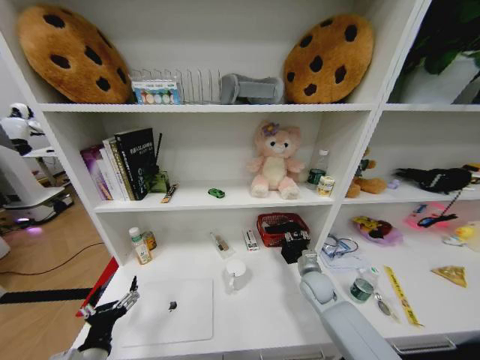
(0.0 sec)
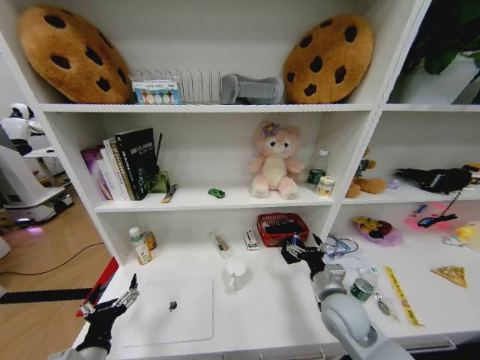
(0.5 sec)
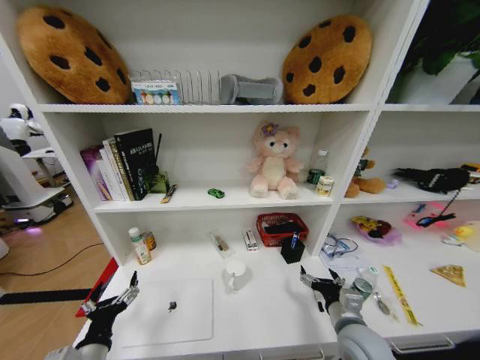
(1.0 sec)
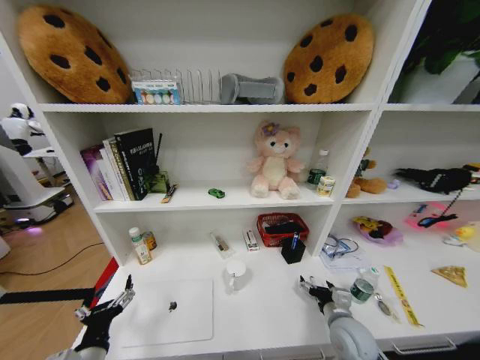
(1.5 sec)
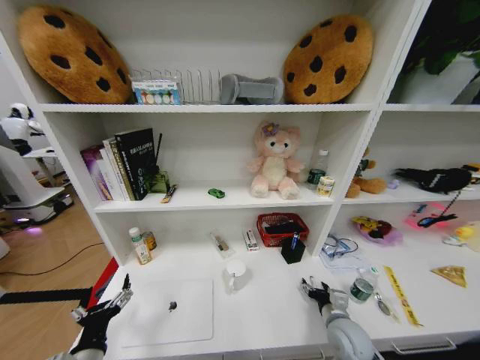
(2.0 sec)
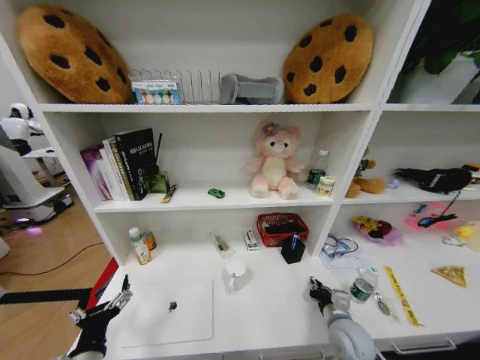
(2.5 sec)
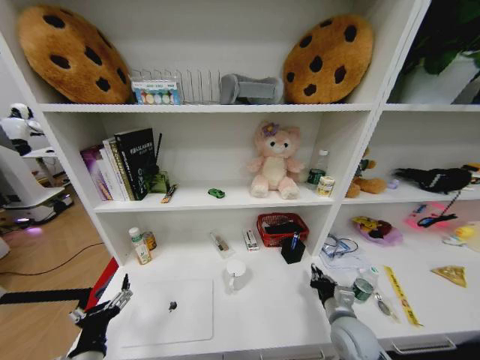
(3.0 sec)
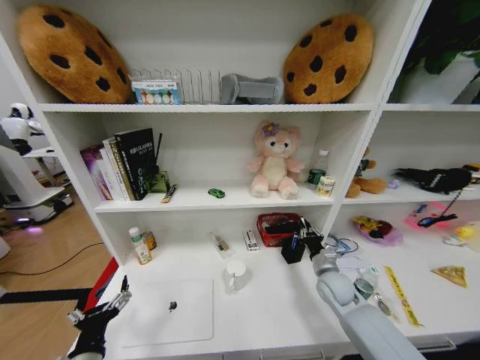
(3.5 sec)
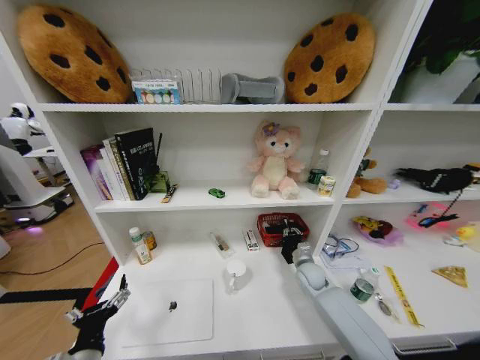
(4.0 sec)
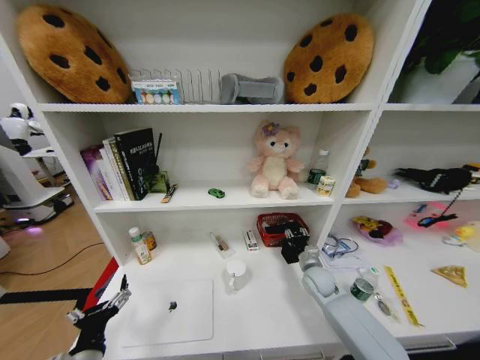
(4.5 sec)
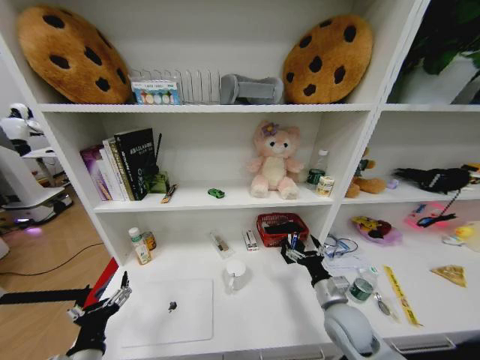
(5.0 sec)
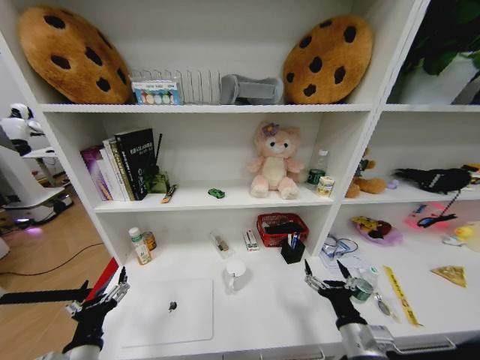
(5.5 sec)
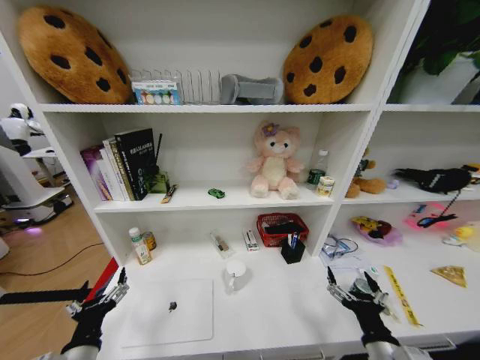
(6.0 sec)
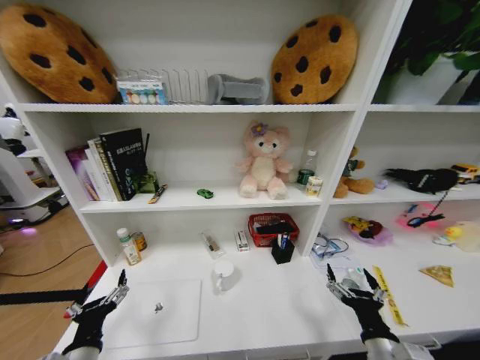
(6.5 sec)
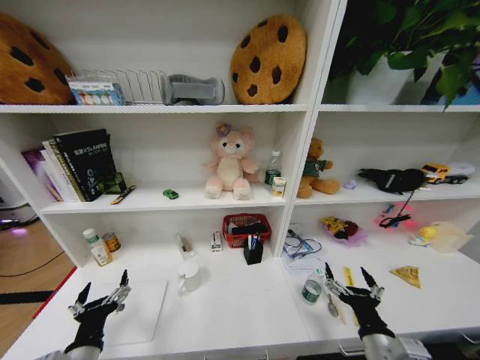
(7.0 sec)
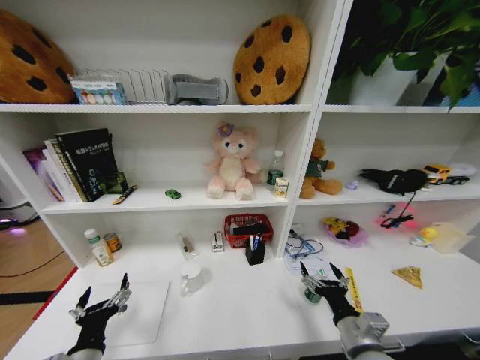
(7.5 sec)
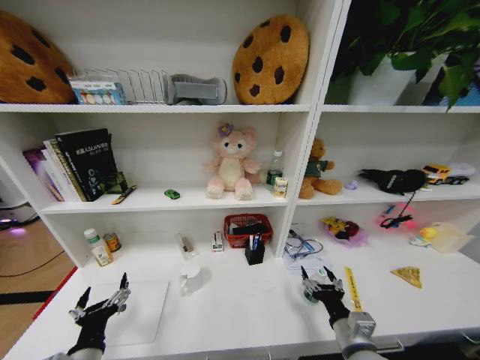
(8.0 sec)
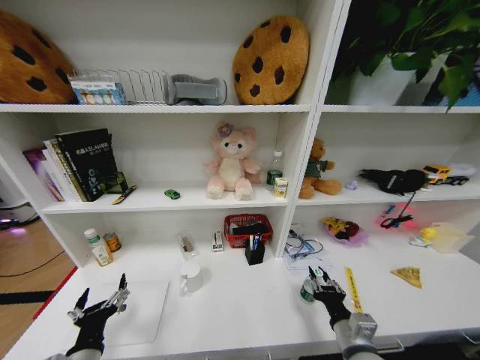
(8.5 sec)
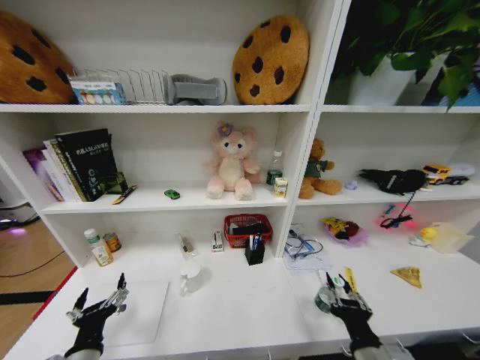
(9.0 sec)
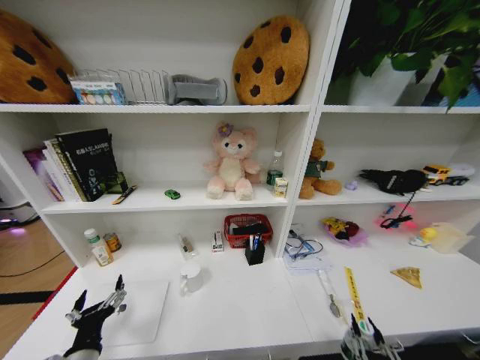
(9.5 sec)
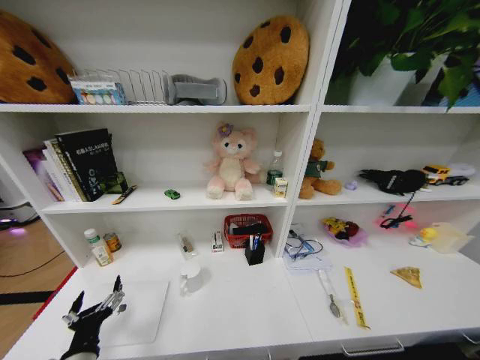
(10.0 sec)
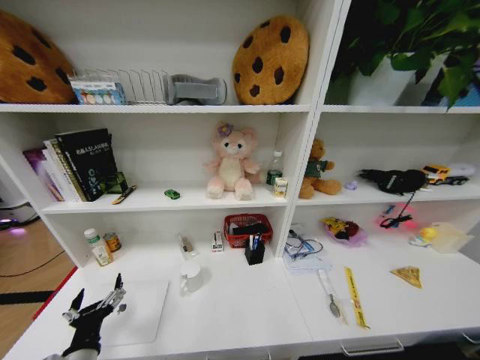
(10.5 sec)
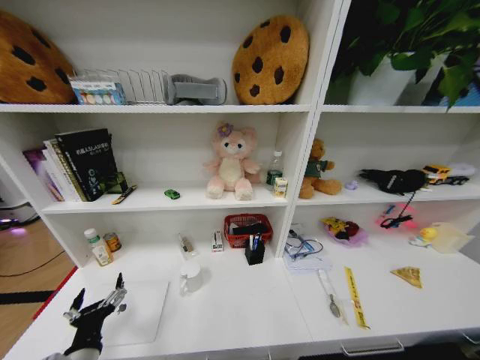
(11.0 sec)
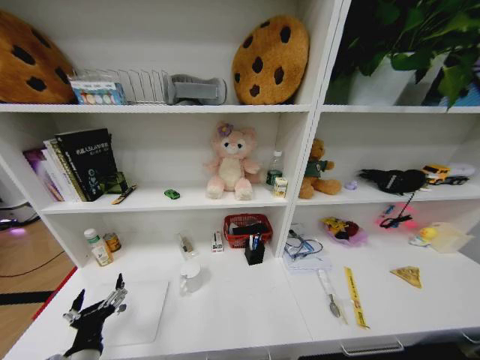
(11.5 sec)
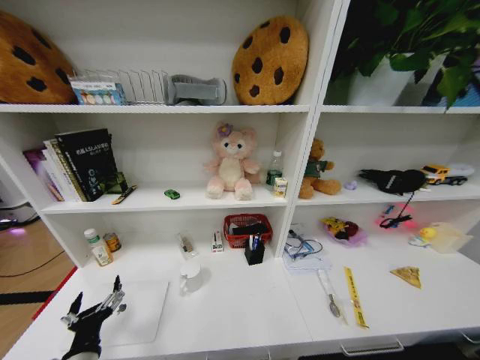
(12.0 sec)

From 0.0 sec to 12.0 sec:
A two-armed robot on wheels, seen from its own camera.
Task of the whole recording: Organize the objects on the table.
From 0.0 sec to 2.0 sec: The right gripper heads backward, covering roughly 15 cm, and opens.
From 2.0 sec to 4.0 sec: The right gripper shifts about 20 cm forward, and closes up.
From 4.0 sec to 6.0 sec: The right gripper shifts roughly 30 cm backward, and opens its fingers.
From 6.0 sec to 8.0 sec: The right gripper travels forward by roughly 5 cm.
From 8.0 sec to 10.0 sec: The right gripper is displaced backward by about 20 cm, and closes up.

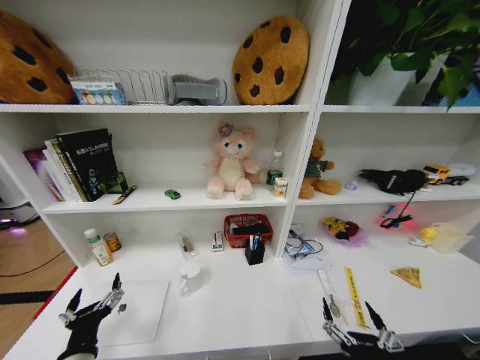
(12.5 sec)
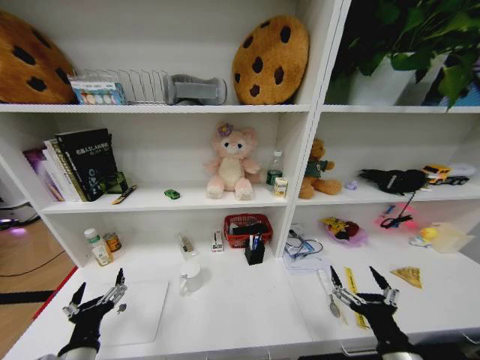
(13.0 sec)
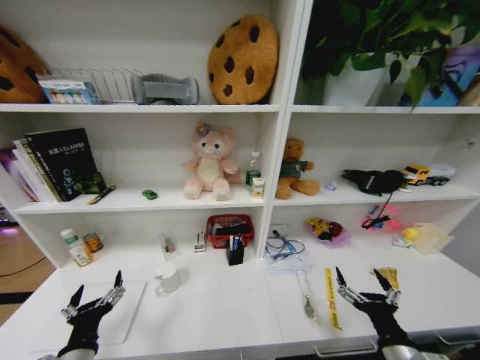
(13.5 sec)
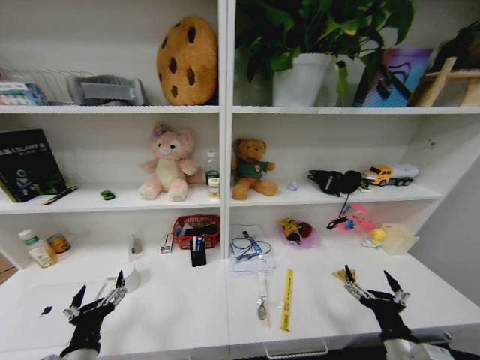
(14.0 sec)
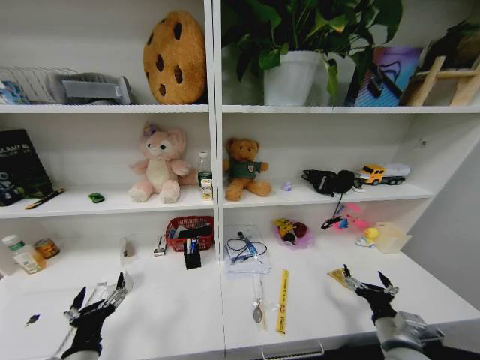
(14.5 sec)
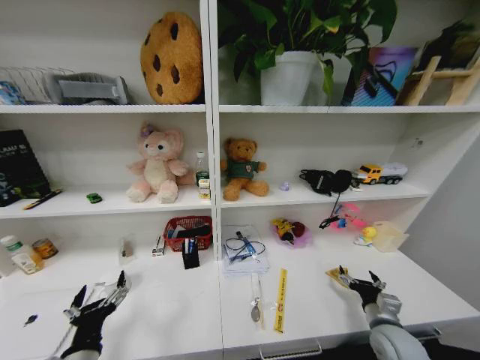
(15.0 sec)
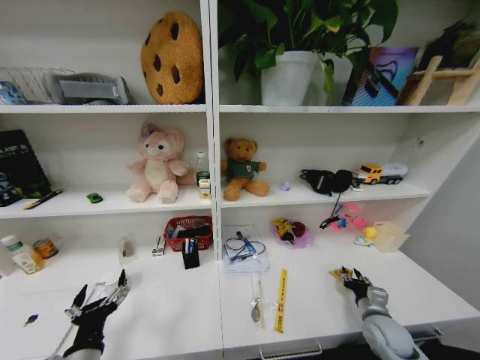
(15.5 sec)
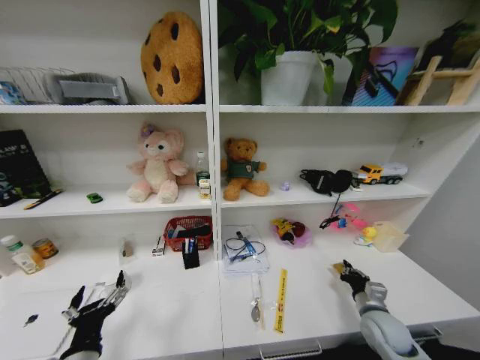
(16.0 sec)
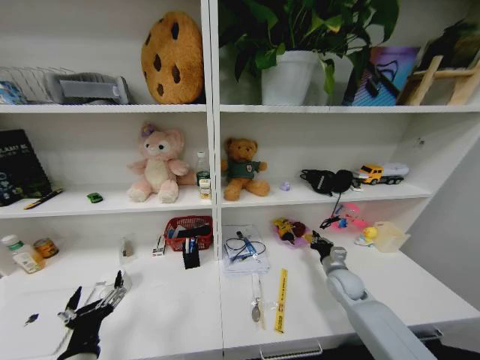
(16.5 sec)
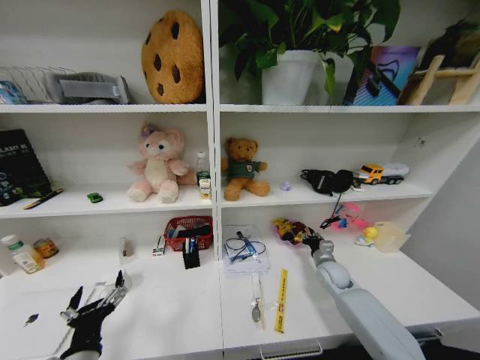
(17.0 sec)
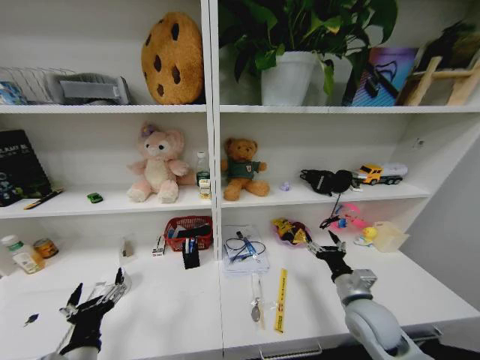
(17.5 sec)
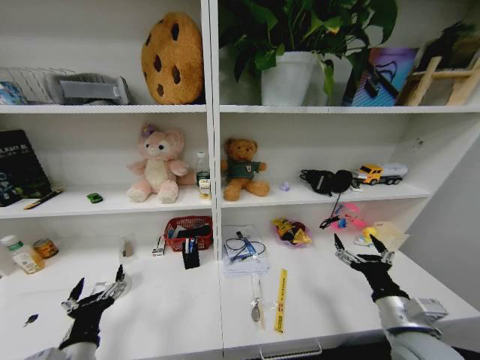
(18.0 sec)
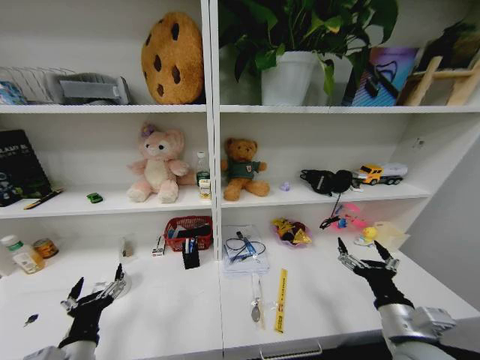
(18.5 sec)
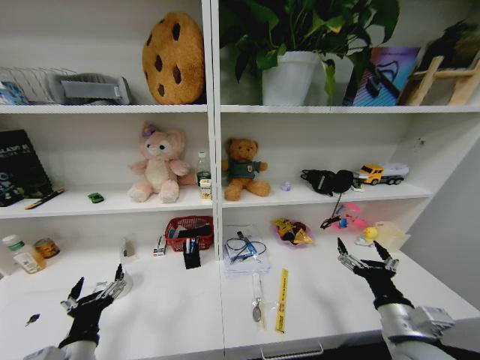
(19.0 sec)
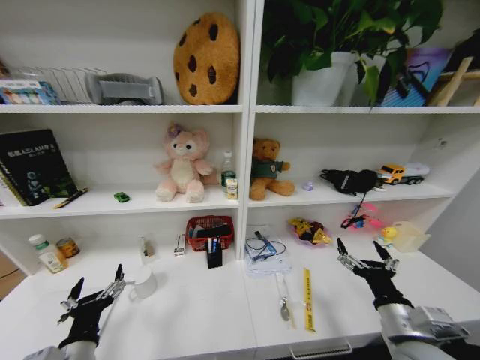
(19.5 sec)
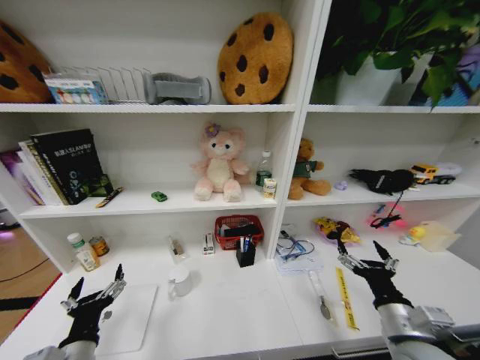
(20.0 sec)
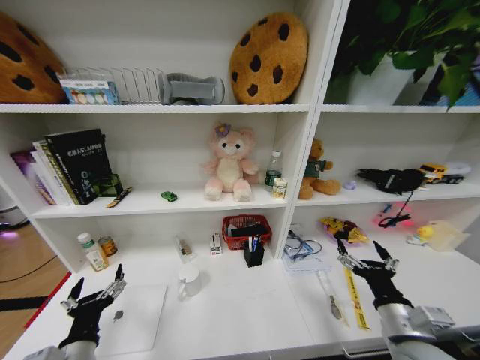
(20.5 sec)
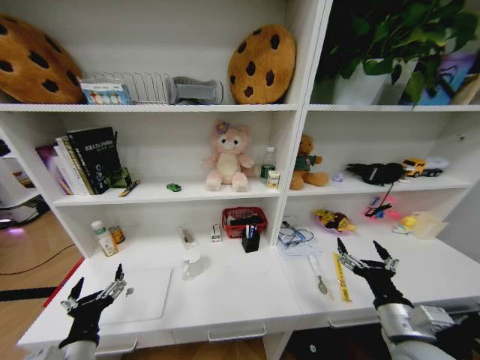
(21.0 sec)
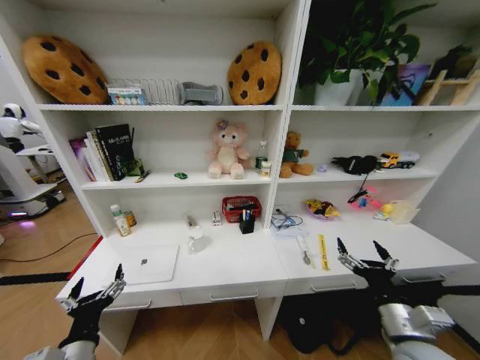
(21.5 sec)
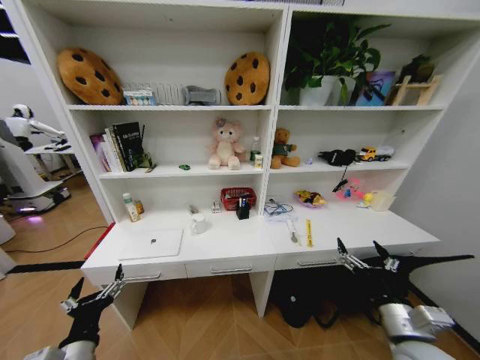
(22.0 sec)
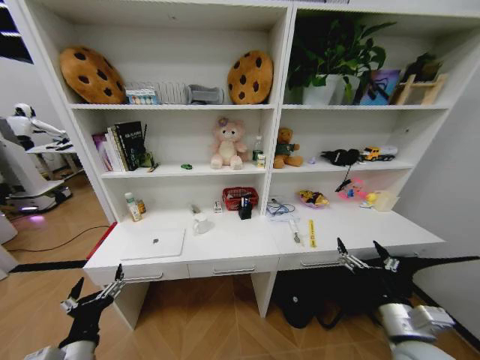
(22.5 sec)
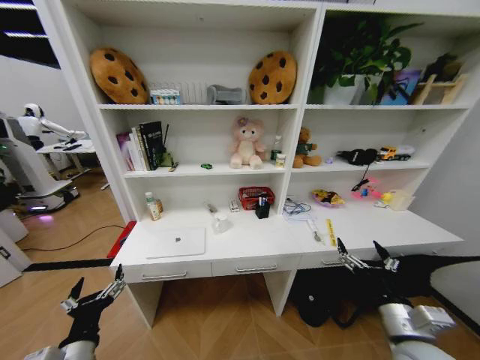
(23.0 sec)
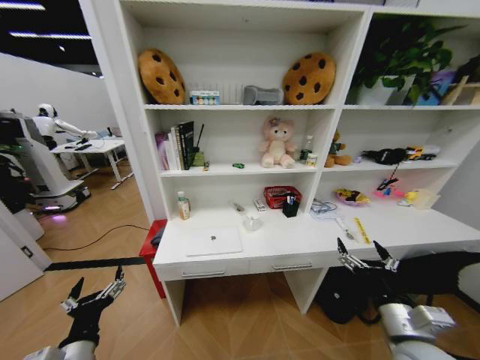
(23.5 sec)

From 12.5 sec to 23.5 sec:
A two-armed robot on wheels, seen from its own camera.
Task of the whole recording: Organize the objects on the table.
From 12.5 sec to 14.5 sec: The right gripper goes some 20 cm forward and to the right.
From 14.5 sec to 16.0 sec: The right gripper heads forward, covering about 10 cm, and closes its fingers.
From 16.0 sec to 18.0 sec: The right gripper moves upward, backward and to the left, about 15 cm, and opens.
